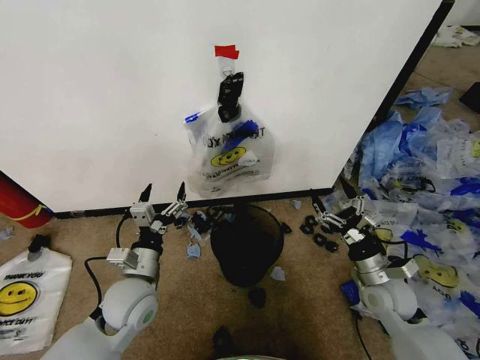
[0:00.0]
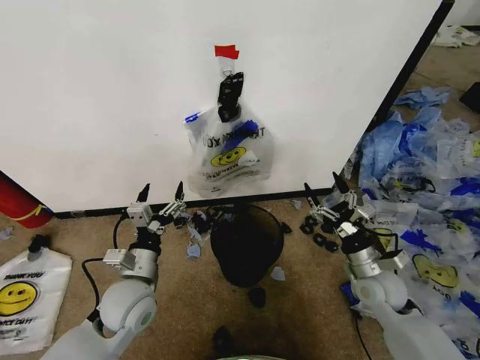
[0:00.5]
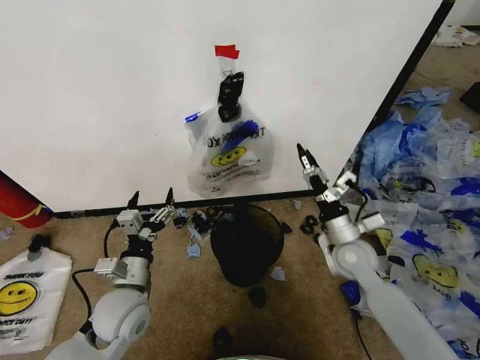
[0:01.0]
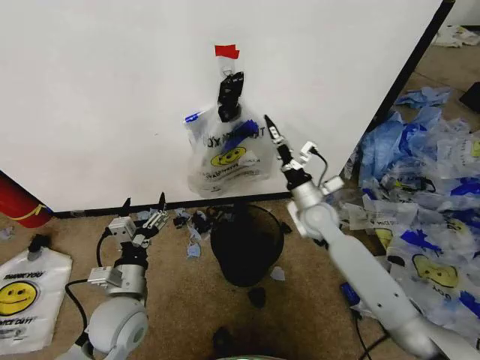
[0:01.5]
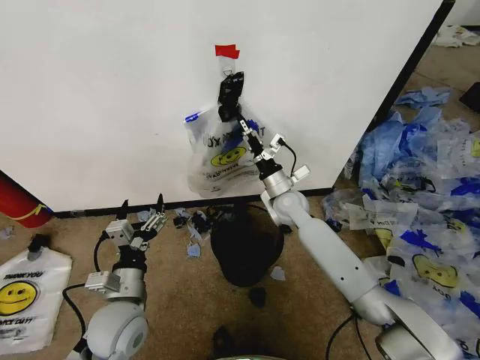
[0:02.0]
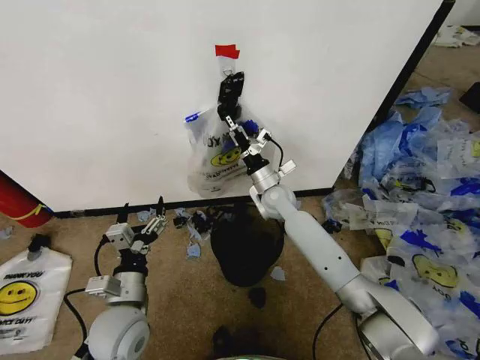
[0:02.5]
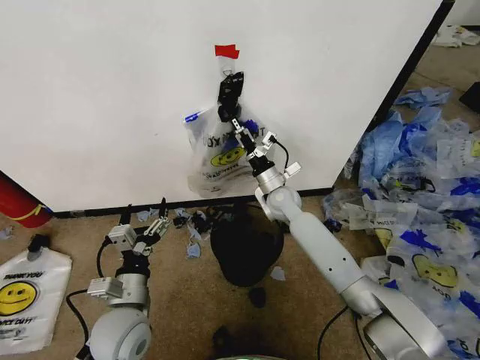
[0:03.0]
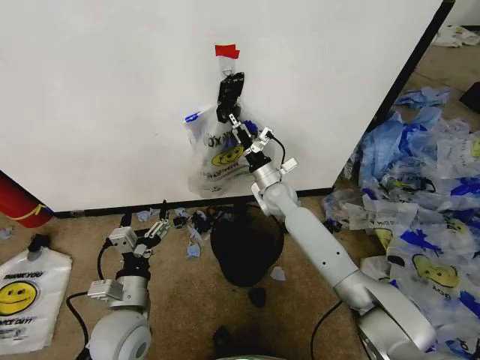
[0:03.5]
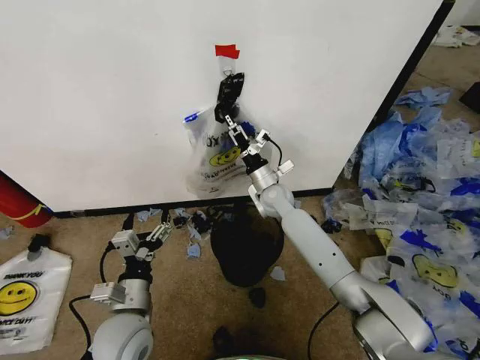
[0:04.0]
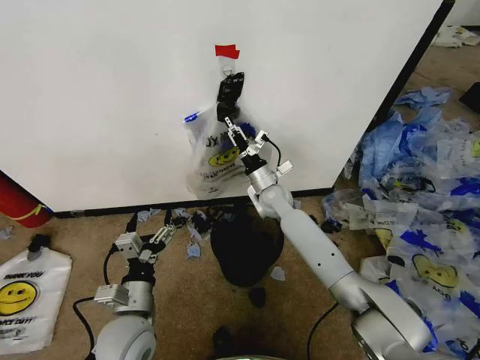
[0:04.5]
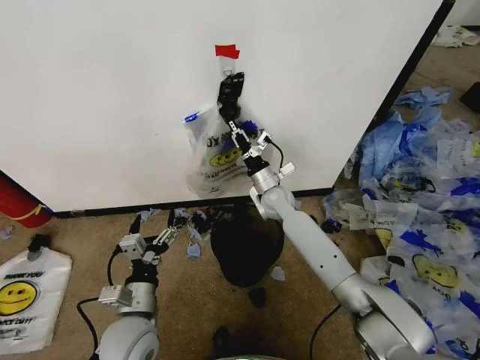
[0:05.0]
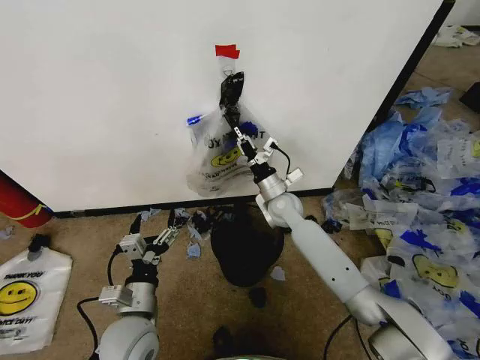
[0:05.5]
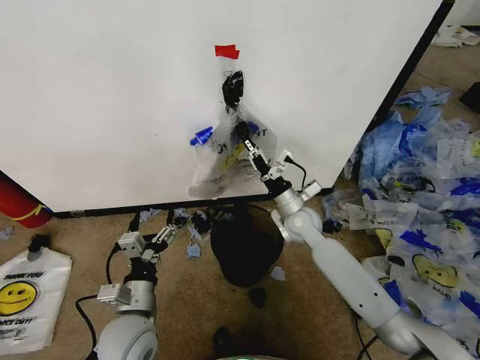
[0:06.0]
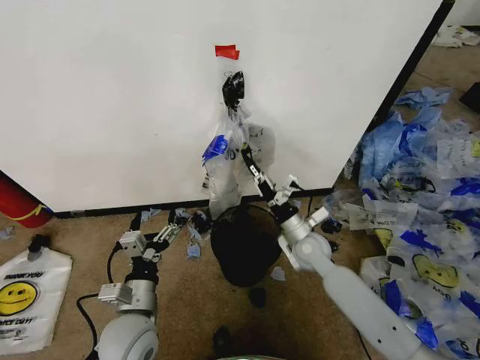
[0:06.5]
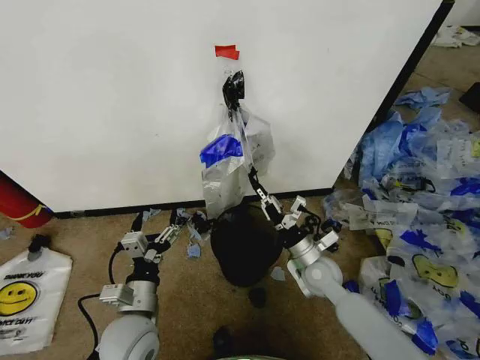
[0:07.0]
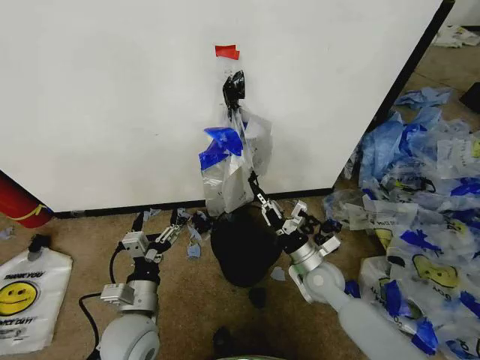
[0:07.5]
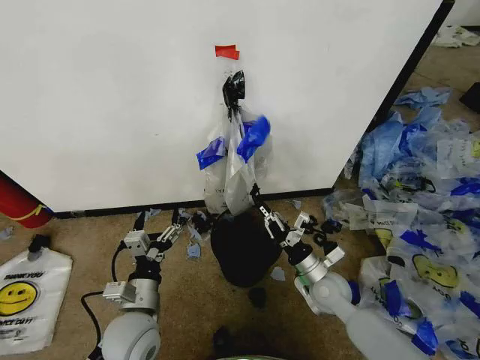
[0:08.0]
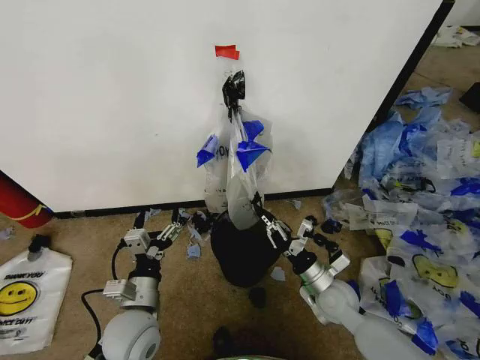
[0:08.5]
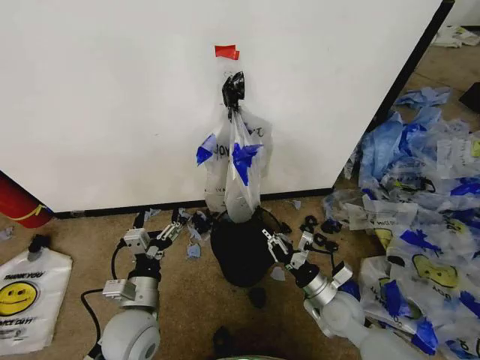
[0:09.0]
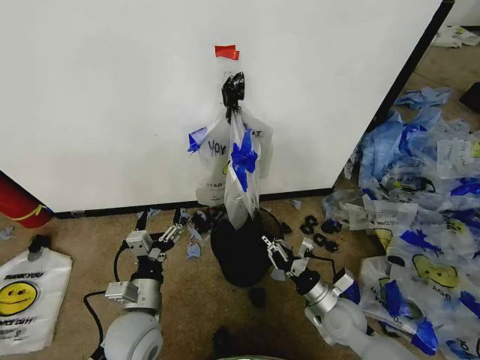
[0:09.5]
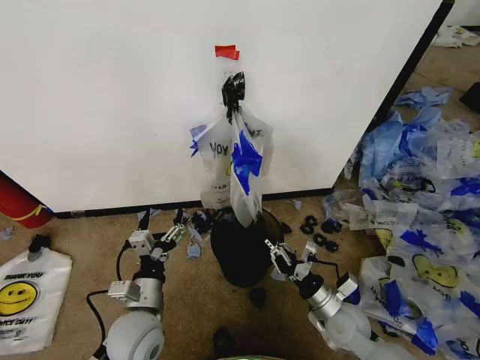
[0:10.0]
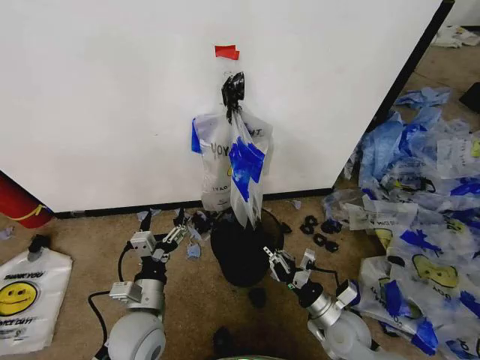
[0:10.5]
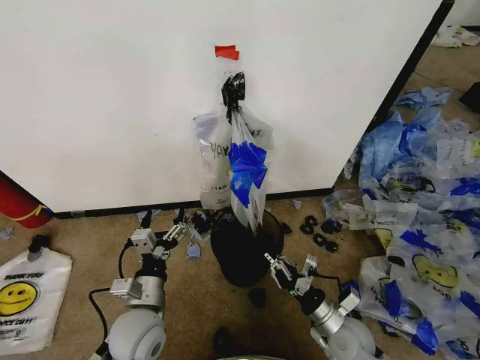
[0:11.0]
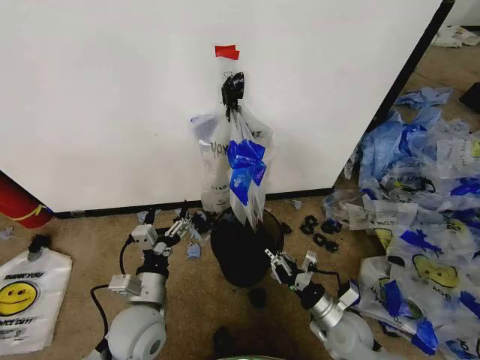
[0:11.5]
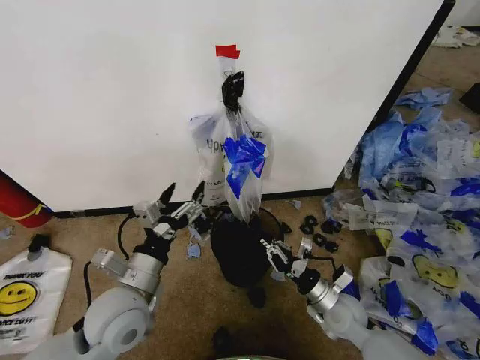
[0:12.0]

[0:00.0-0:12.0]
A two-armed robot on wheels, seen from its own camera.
Task of the whole recording: Pick up the garbage bag from the wall and place it over the trash bin.
0:02.0 to 0:04.0: The grippers stay close to where they were, moving slightly.
0:04.0 to 0:06.0: The right gripper heads backward and to the right, covering roughly 10 cm, and closes up.
0:06.0 to 0:08.0: The right gripper heads backward and downward, covering about 15 cm.
0:08.0 to 0:10.0: The right gripper moves backward, approximately 5 cm.
0:10.0 to 0:12.0: The left gripper shifts approximately 10 cm upward.

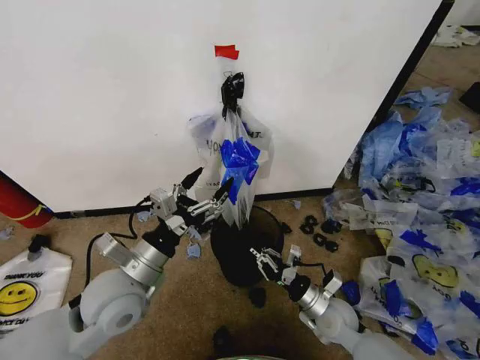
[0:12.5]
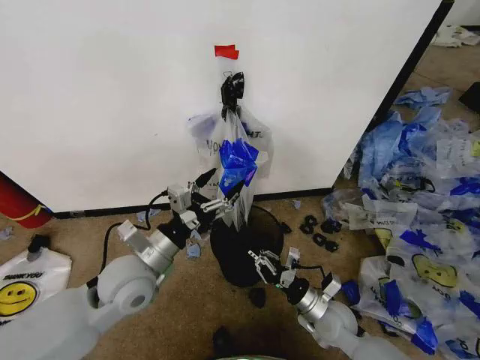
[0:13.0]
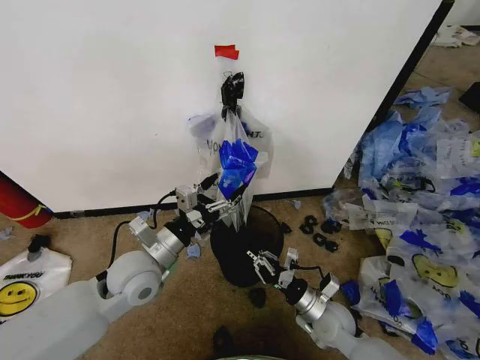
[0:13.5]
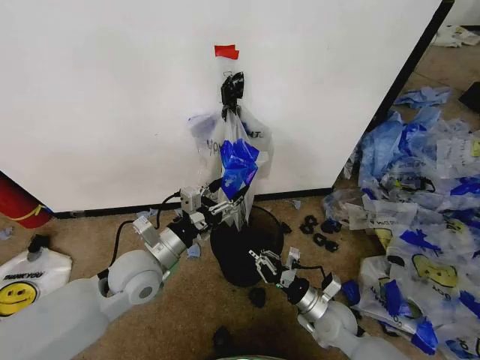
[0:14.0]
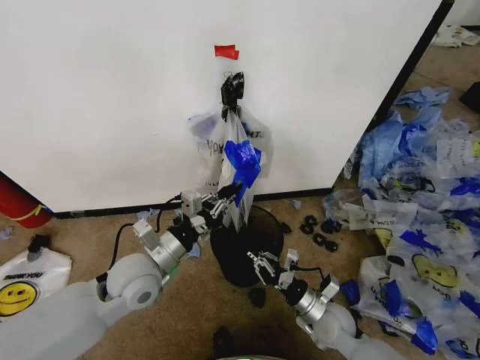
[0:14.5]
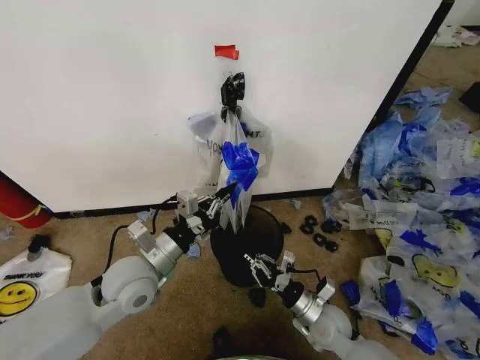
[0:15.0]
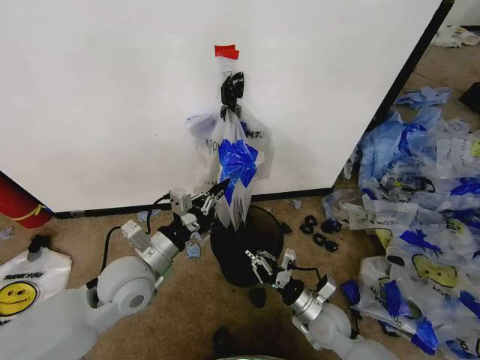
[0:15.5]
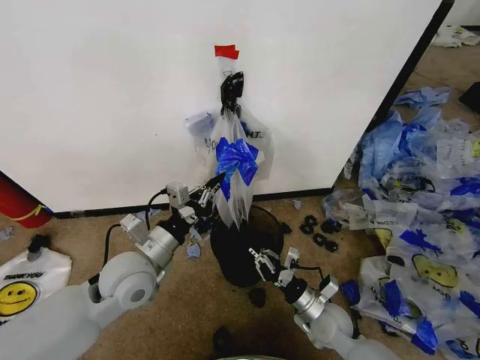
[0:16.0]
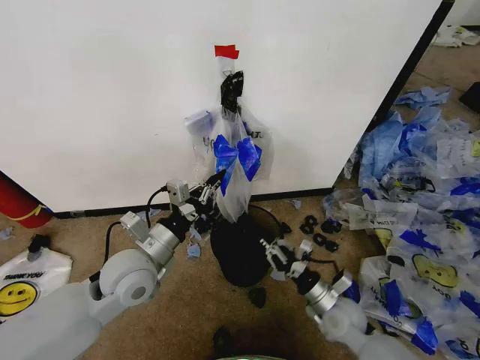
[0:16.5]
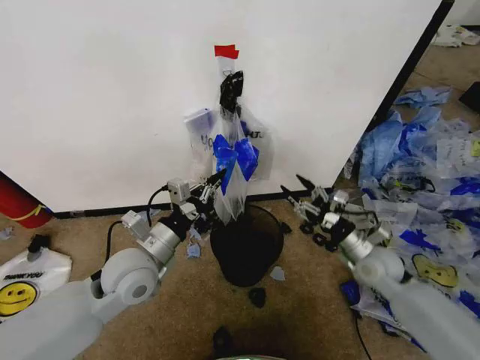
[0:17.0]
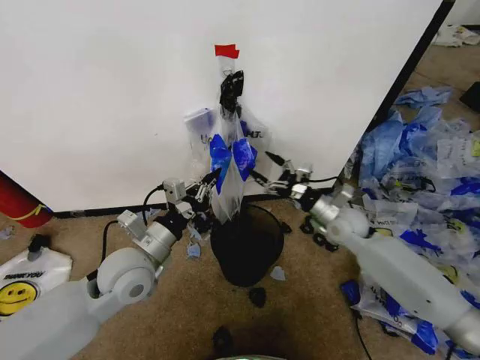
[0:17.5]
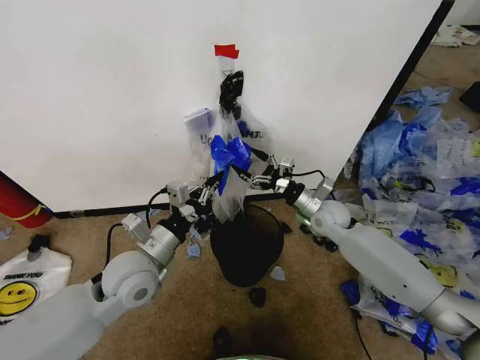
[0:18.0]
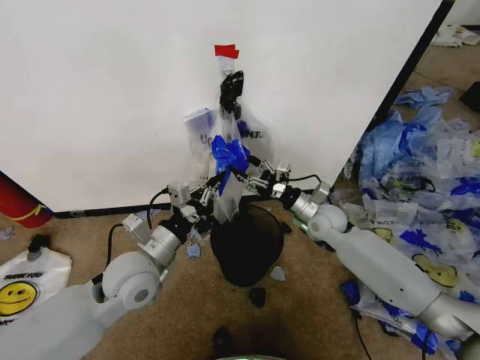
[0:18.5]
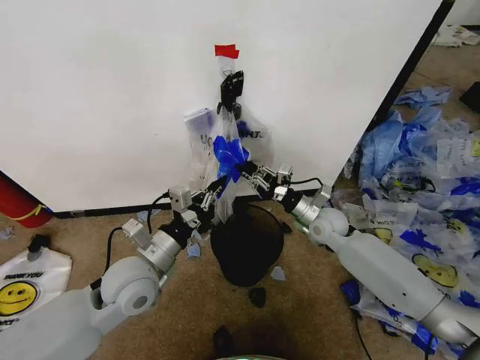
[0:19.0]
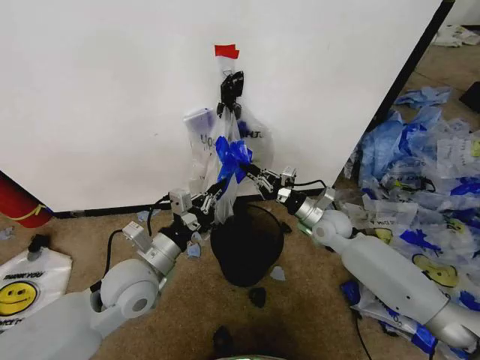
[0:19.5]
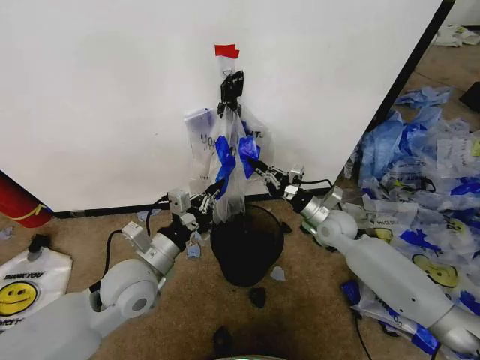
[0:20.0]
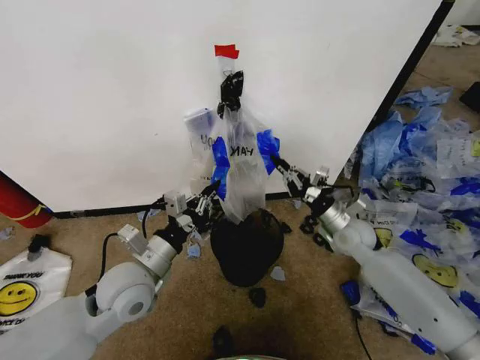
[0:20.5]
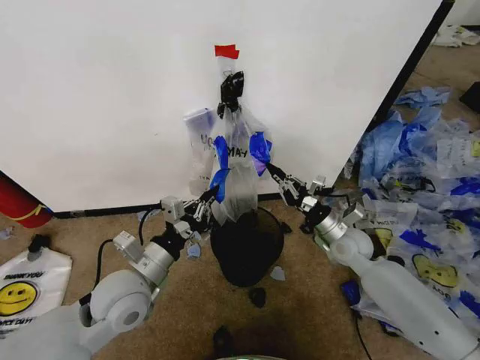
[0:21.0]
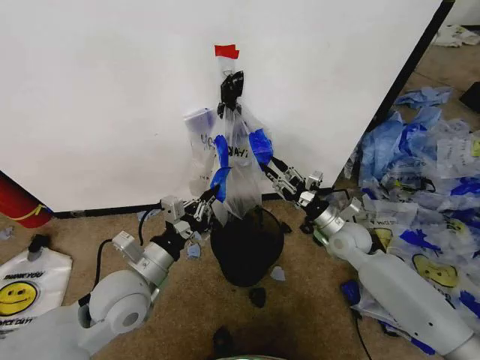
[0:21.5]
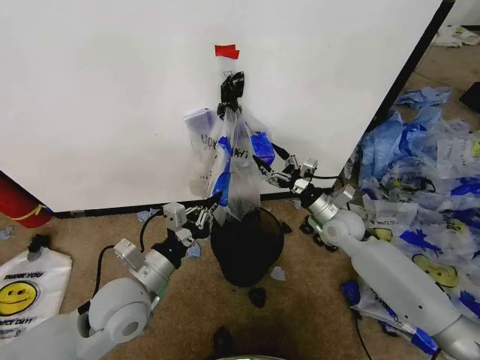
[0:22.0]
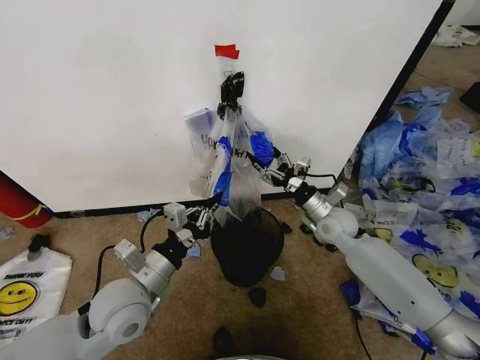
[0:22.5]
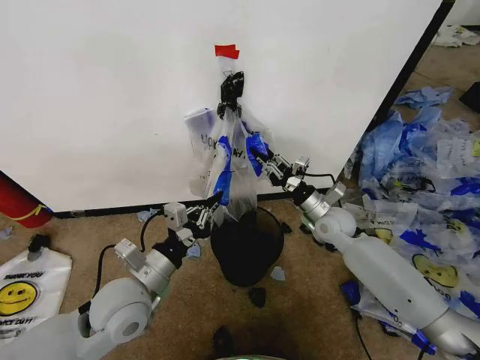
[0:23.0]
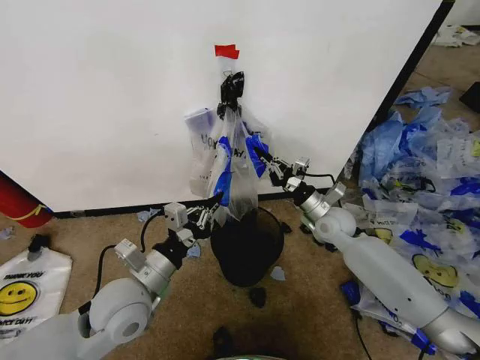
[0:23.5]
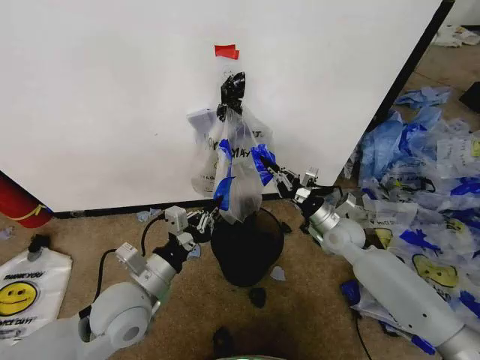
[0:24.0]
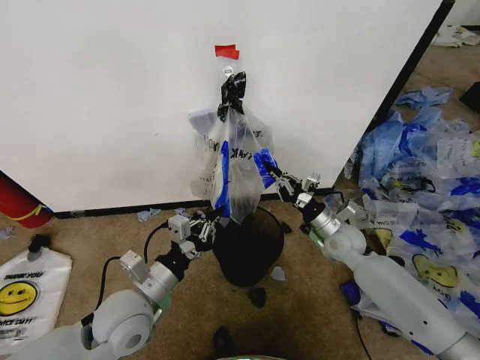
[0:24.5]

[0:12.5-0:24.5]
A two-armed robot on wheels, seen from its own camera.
Task of the whole recording: Pick up the garbage bag from the wall and place it over the trash bin.
0:12.5 to 0:14.5: The left gripper shifts by some 5 cm, and closes up.
0:14.5 to 0:16.5: The grippers move only a little.
0:16.5 to 0:18.5: The right gripper is displaced forward and upward by about 20 cm, and opens.
0:18.5 to 0:20.5: The right gripper moves to the right, roughly 5 cm, and closes.
0:20.5 to 0:22.5: The right gripper opens up.
0:22.5 to 0:24.5: The right gripper closes.

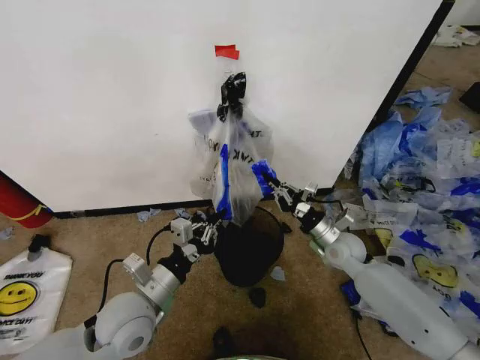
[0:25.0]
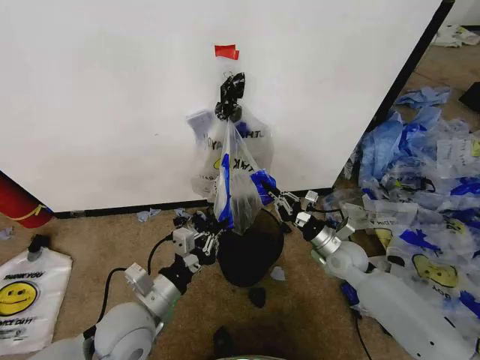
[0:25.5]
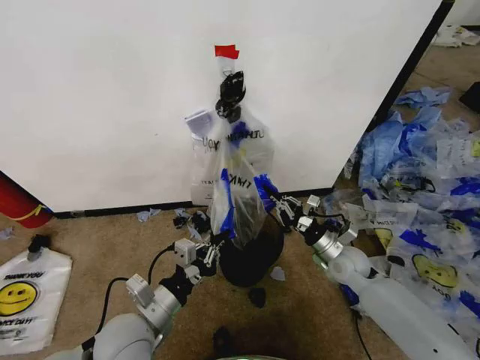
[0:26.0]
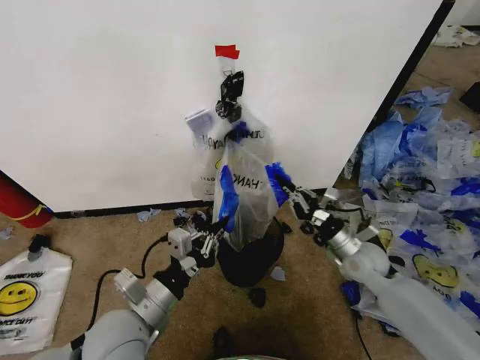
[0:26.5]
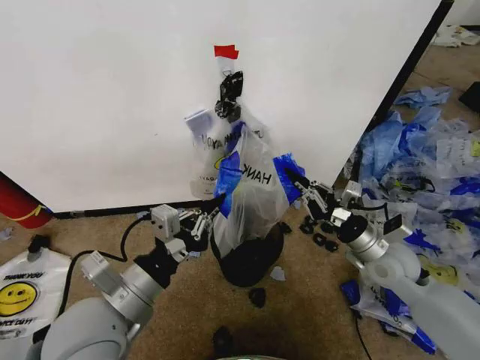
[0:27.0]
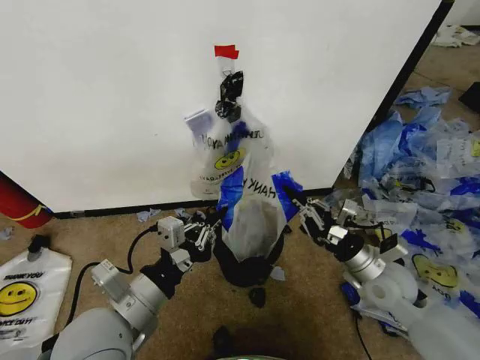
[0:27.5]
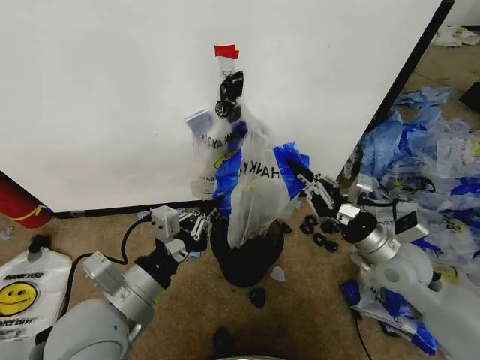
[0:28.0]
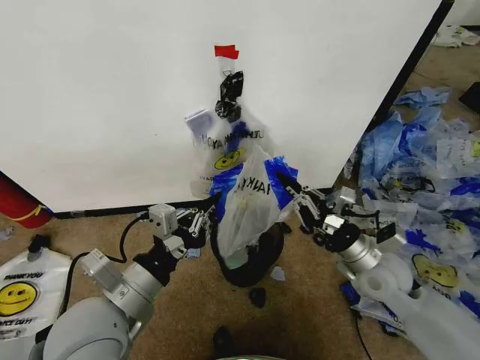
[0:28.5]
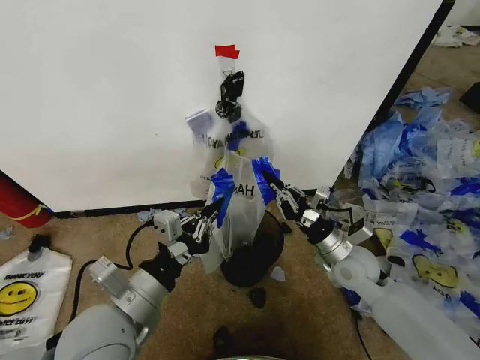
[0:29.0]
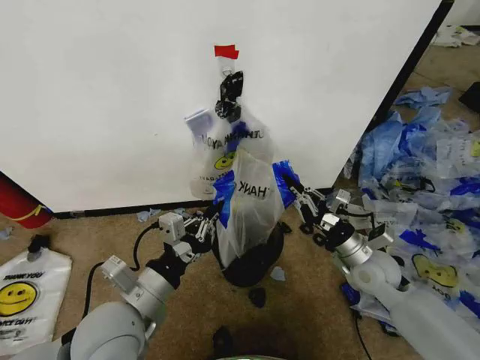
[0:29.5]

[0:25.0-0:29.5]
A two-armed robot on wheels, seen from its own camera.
Task of the whole recording: Pick up the garbage bag from the wall and place it over the trash bin.
0:25.0 to 0:27.0: The right gripper is displaced upward and backward by roughly 10 cm; the left gripper is displaced upward by some 10 cm.
